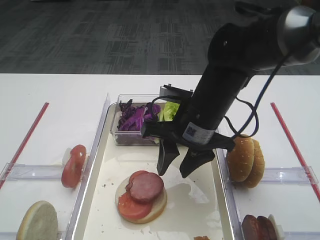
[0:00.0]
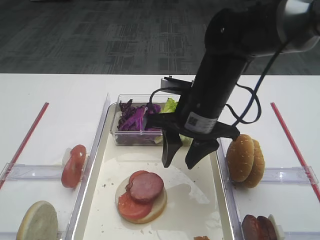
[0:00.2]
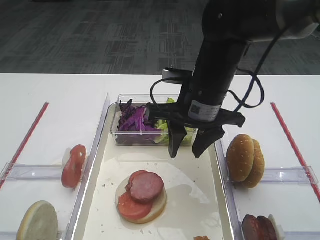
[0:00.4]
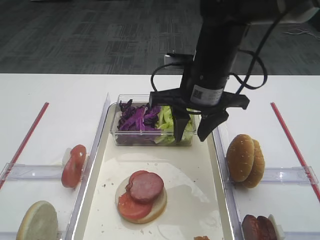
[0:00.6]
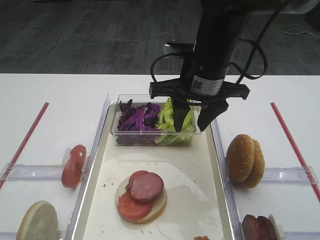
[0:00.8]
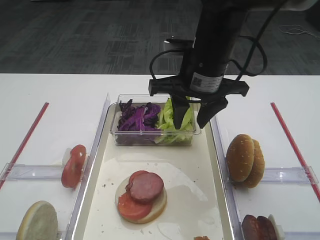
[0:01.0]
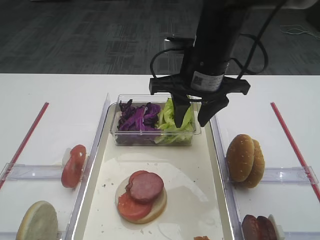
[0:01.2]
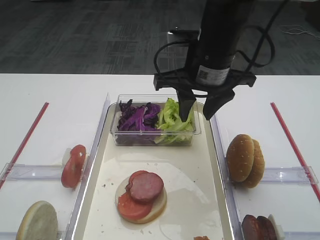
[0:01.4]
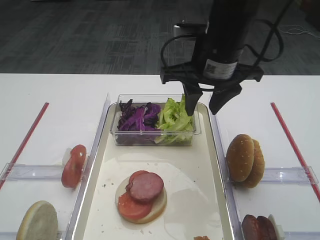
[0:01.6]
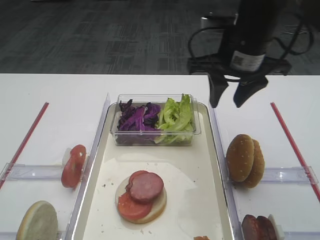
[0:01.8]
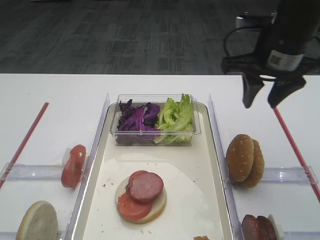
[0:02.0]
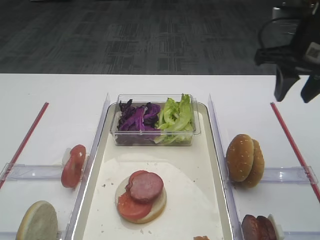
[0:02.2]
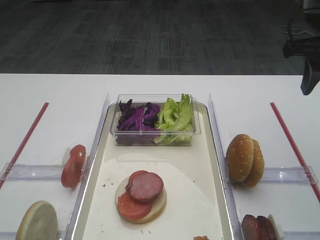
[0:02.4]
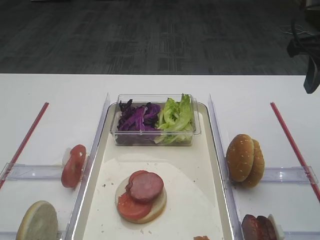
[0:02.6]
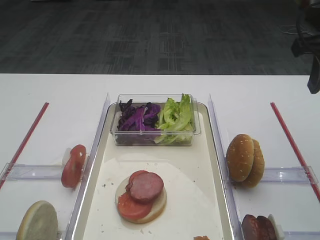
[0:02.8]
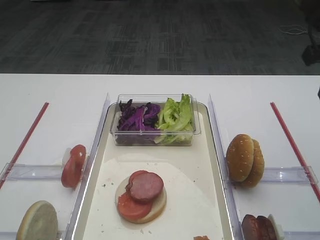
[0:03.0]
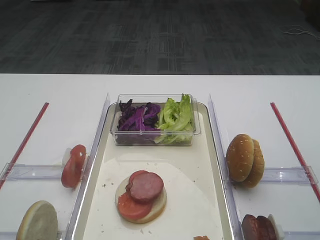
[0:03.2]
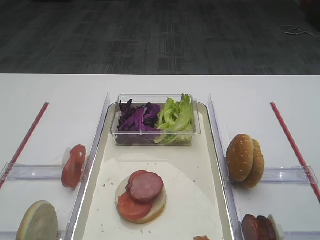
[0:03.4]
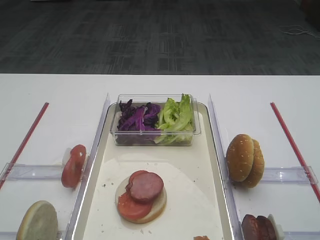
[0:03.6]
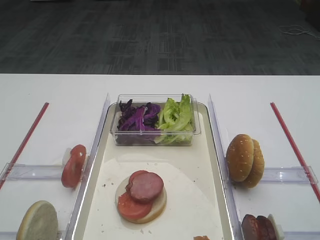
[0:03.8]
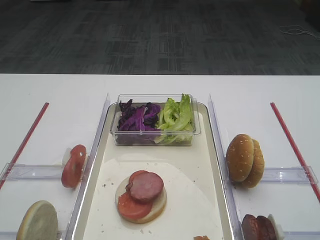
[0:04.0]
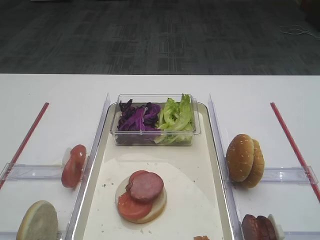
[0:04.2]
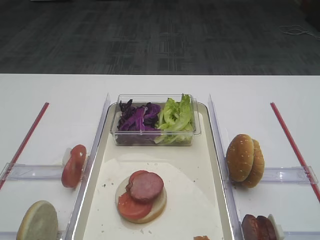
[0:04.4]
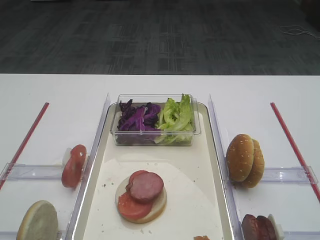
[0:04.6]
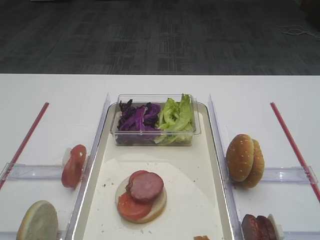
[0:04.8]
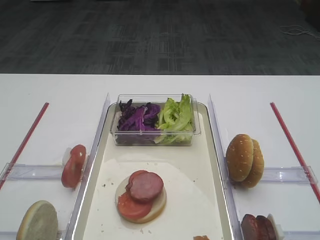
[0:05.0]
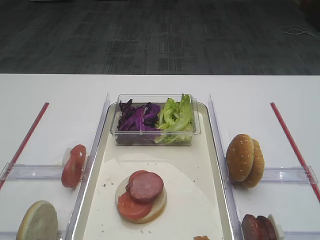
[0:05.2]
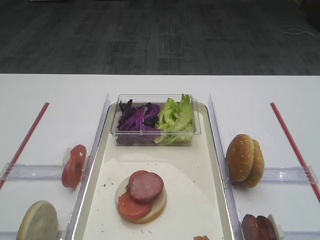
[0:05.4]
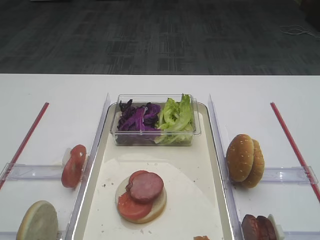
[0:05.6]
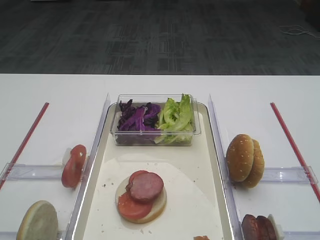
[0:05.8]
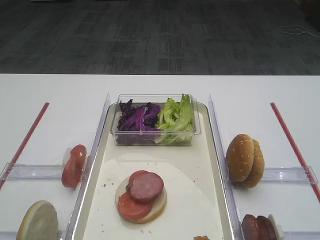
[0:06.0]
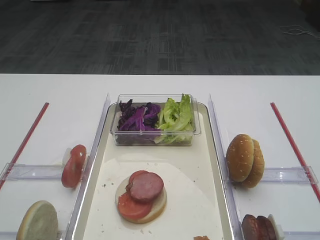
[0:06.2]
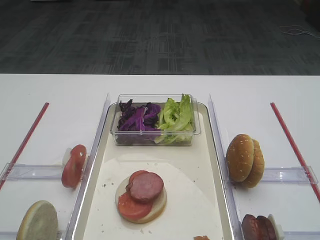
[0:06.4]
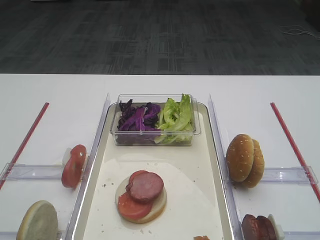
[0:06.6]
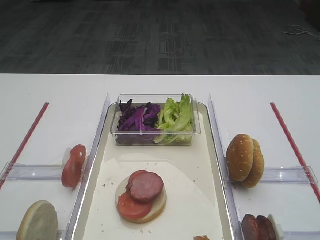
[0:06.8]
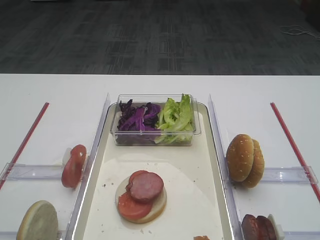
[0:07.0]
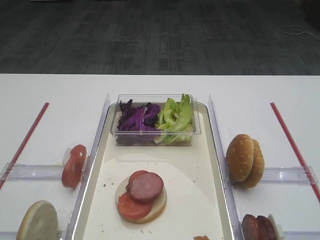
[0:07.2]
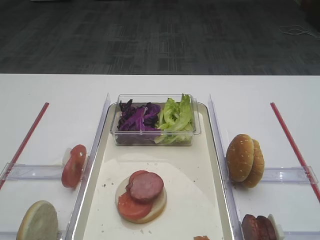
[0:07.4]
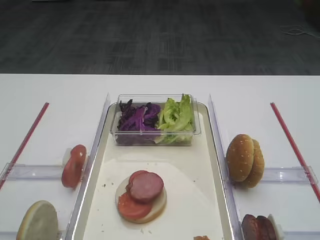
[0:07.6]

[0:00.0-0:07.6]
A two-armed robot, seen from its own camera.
0:00.0 to 0:01.6: The right gripper shifts about 10 cm upward.
0:01.6 to 0:03.0: The right gripper travels to the right by some 20 cm.
0:03.0 to 0:04.6: The right gripper goes roughly 25 cm backward.
0:06.0 to 0:07.6: The two grippers keep their place.

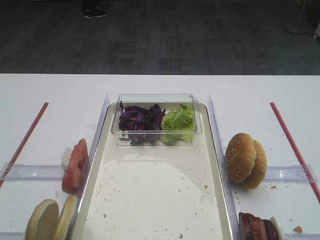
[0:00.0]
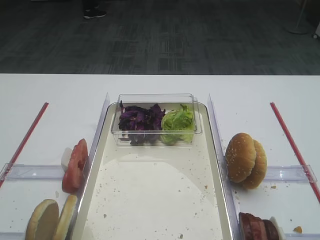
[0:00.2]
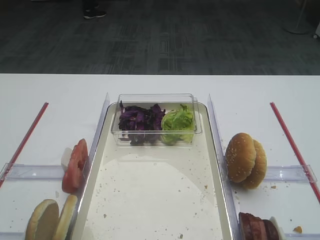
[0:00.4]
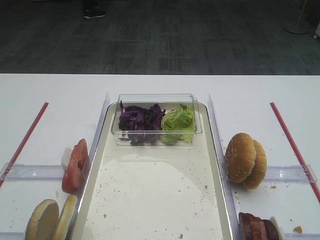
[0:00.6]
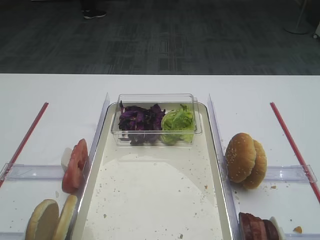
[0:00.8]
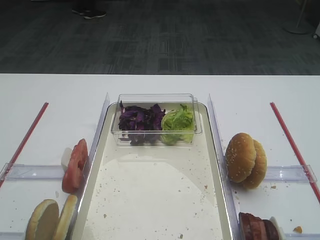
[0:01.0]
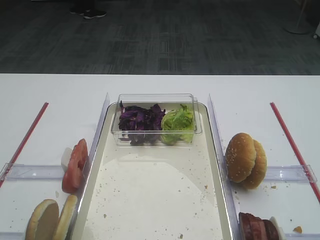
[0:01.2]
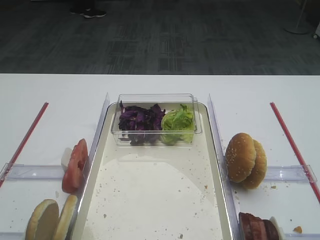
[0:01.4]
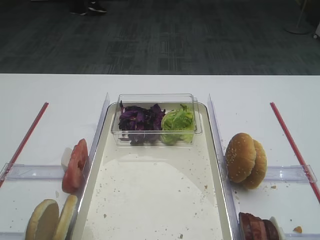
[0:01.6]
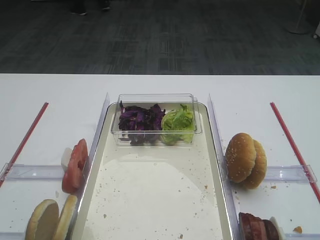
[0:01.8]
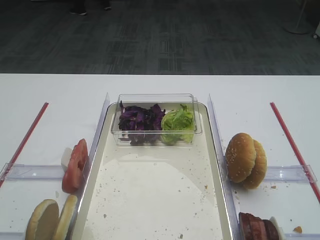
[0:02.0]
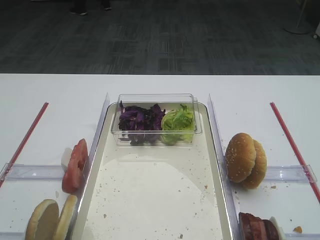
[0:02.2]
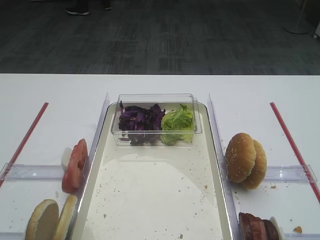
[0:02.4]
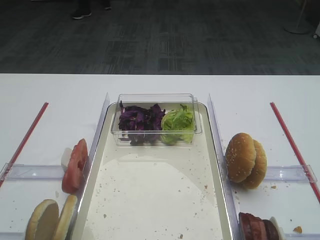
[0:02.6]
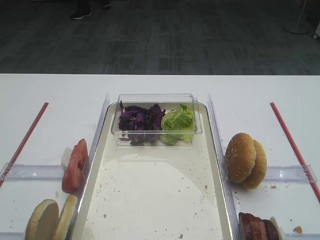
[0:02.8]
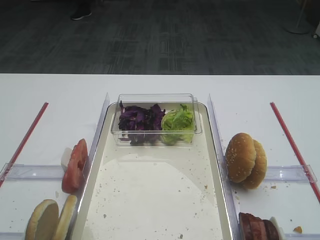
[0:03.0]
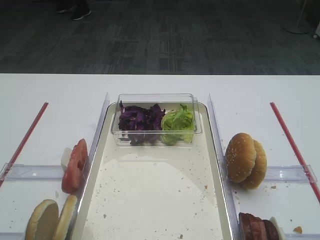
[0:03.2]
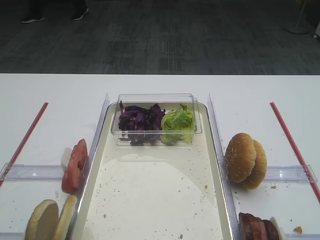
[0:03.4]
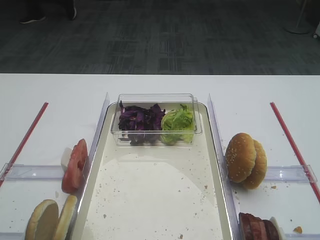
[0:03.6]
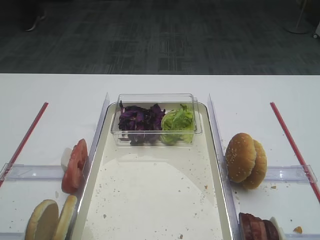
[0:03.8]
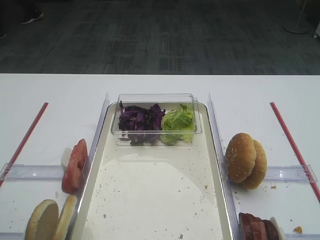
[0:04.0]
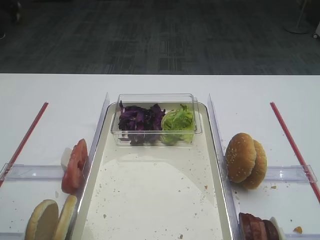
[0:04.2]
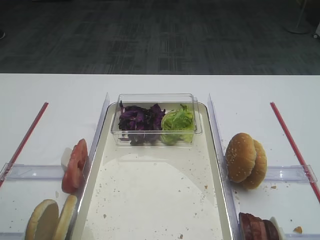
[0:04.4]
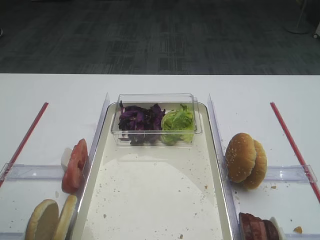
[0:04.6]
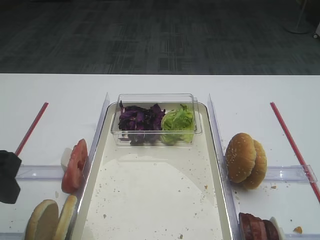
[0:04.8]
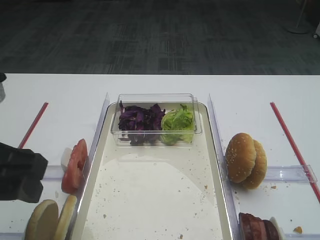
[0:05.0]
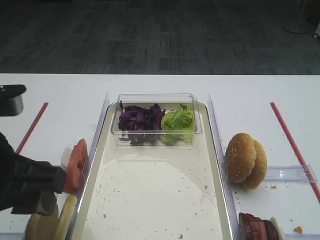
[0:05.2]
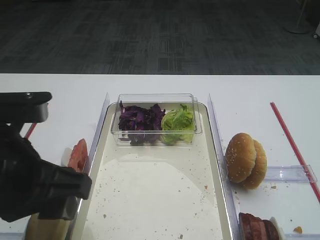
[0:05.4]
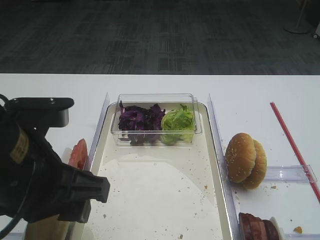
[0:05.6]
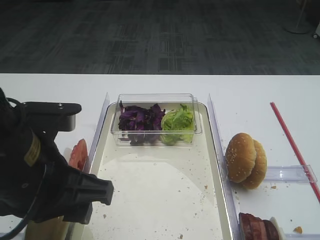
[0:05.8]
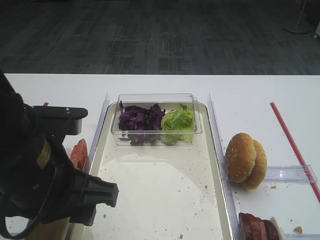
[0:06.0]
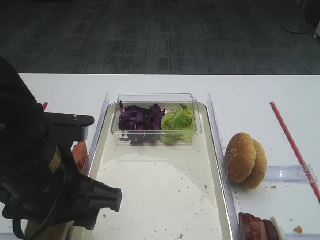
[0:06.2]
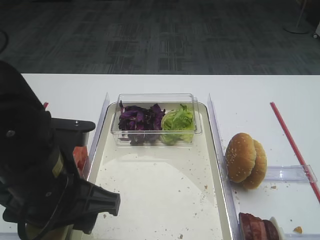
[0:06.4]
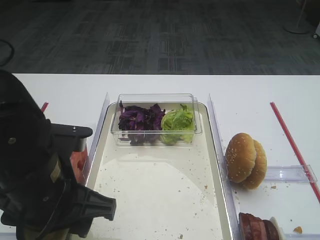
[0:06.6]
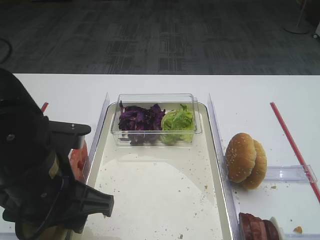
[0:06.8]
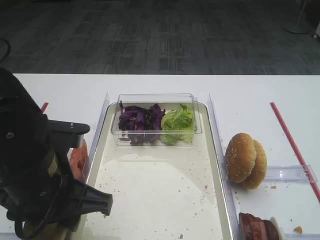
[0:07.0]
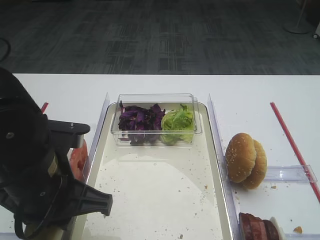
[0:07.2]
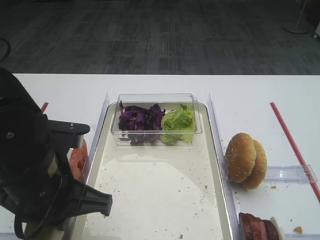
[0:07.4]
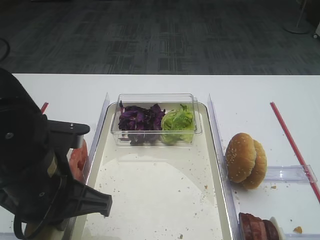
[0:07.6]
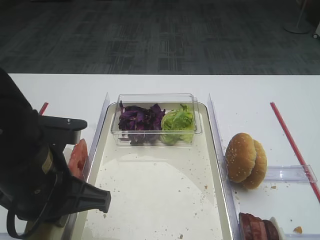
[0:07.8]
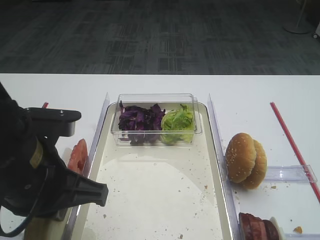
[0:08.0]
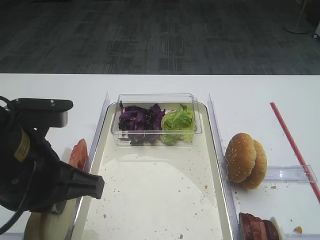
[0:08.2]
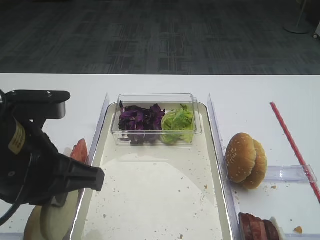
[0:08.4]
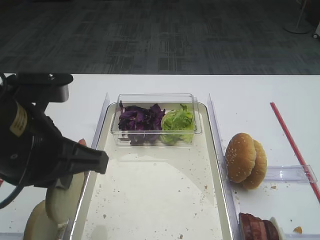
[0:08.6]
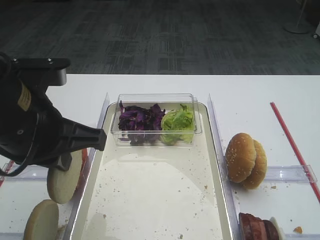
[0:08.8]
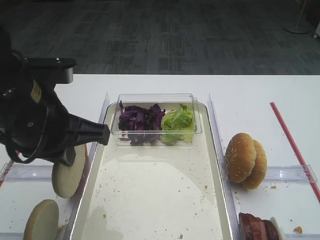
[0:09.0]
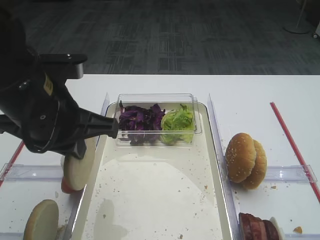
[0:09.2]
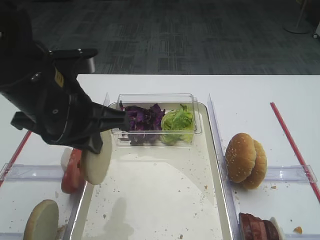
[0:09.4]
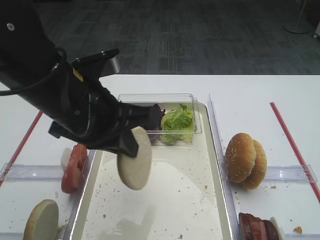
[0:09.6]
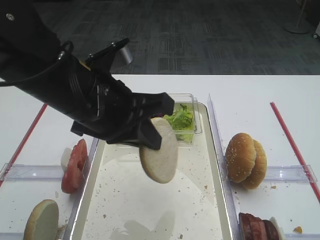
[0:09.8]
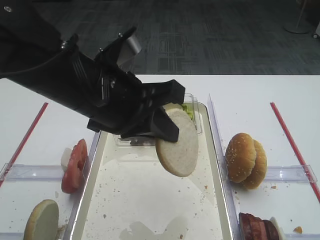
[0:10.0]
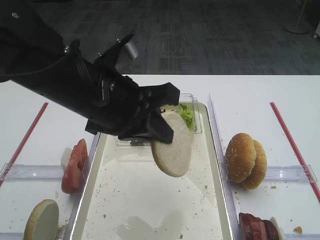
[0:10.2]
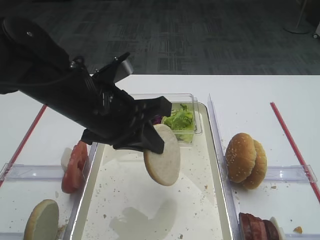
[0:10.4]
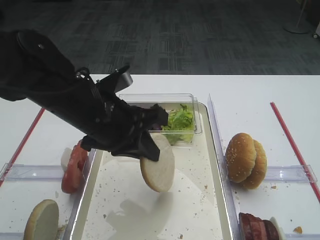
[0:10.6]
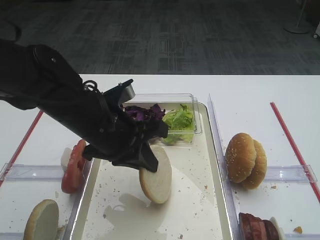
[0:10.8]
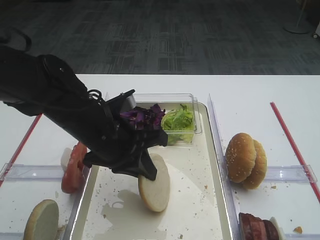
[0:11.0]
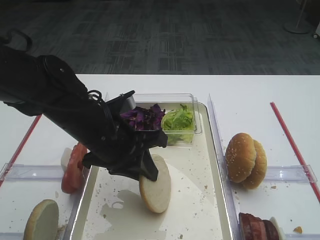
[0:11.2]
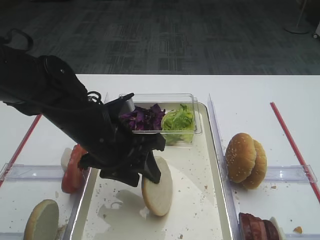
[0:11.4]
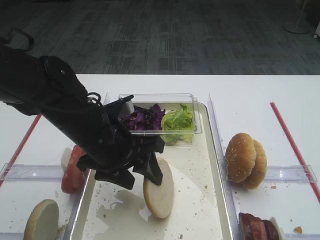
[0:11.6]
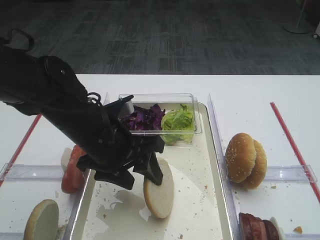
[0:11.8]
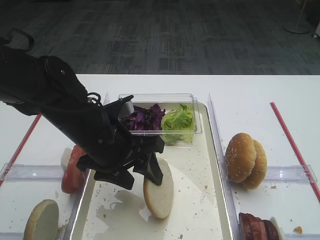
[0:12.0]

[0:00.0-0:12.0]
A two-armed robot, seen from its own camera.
Step, 0:00.0 to 0:08.8: Pick up the bread slice with the left gripper.
0:04.4 to 0:06.0: The left gripper is displaced to the right by about 15 cm.
0:06.0 to 0:07.6: The left gripper closes up.
0:07.6 to 0:09.0: The left gripper heads upward, covering some 5 cm.
0:09.0 to 0:10.4: The left gripper shifts about 5 cm to the right.
0:10.4 to 0:12.0: The left gripper goes some 5 cm downward, and opens its fingers.

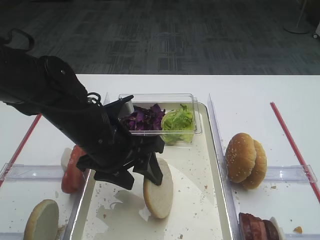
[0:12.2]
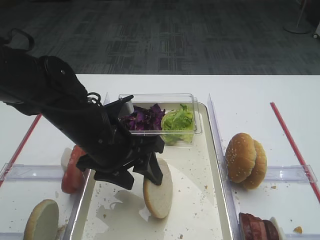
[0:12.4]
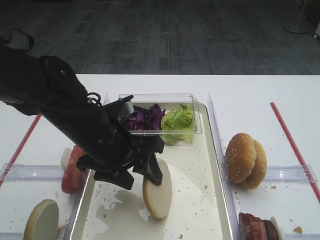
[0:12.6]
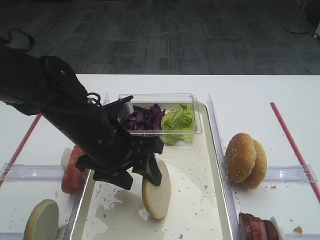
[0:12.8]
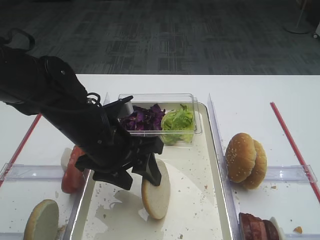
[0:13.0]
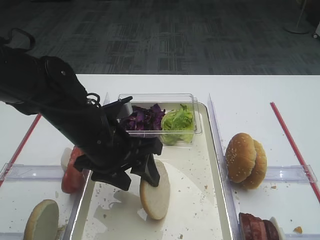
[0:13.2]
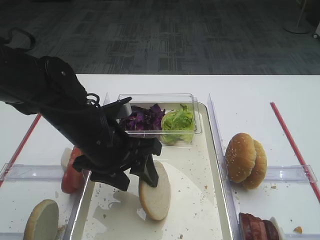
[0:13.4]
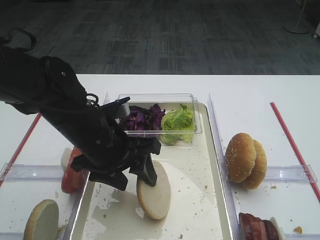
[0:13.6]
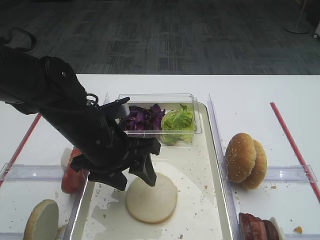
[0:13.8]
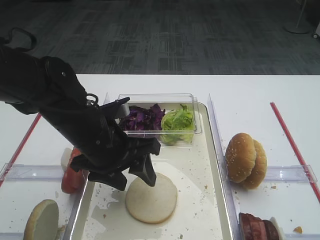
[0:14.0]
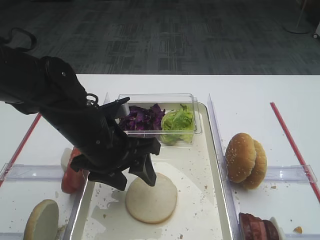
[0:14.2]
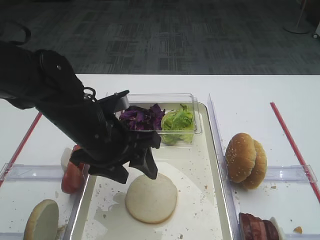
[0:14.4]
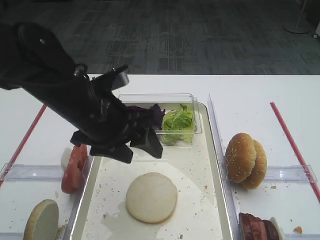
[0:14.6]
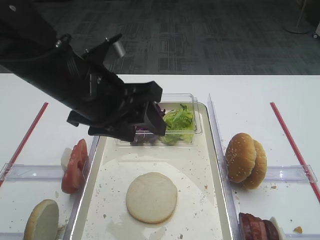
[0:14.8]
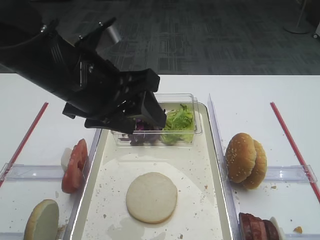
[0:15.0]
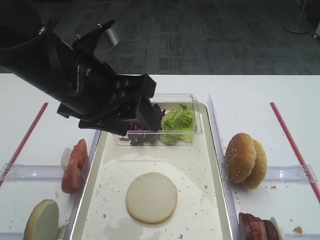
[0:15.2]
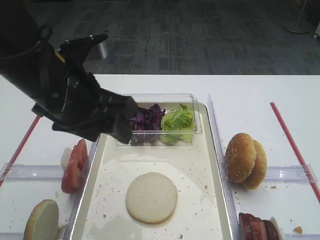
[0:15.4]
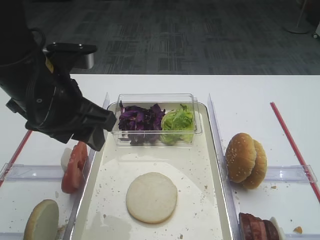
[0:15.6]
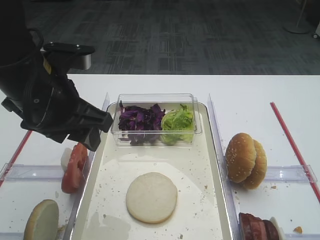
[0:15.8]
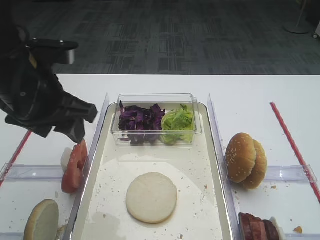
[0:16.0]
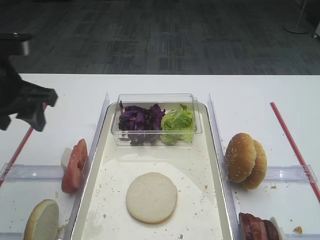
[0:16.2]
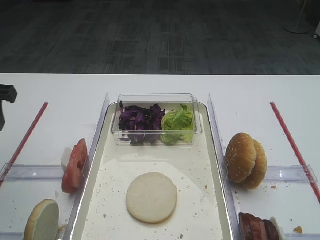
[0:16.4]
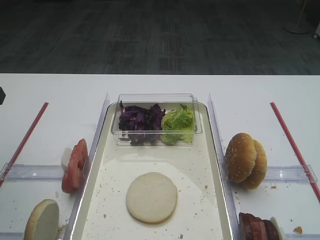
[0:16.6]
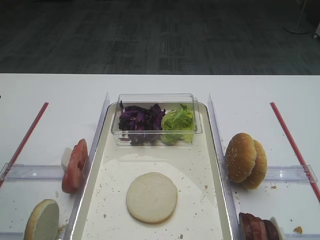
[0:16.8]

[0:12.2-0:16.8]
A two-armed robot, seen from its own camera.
Step, 0:12.2 to 0:14.4: Place the bread slice on the tray with the left gripper.
0:12.2 to 0:13.8: Both grippers stay about where they are.
0:13.8 to 0:15.2: The left gripper shifts approximately 10 cm upward.
0:15.2 to 0:16.8: The left gripper shifts some 20 cm to the left.
